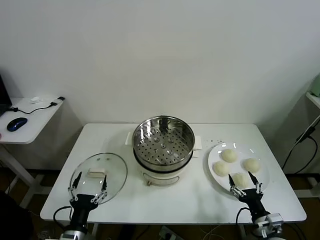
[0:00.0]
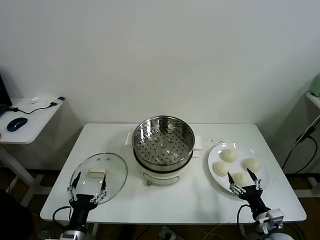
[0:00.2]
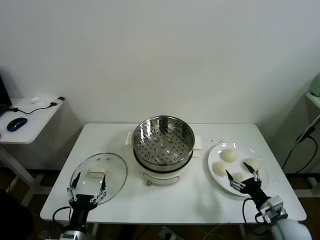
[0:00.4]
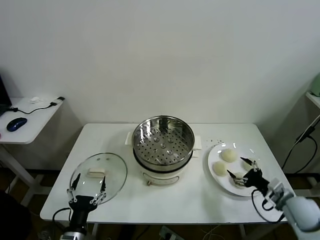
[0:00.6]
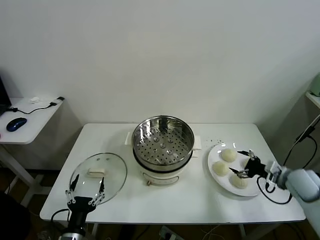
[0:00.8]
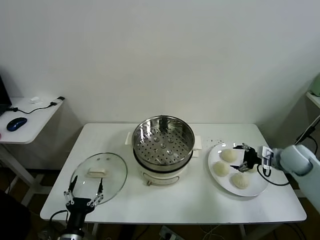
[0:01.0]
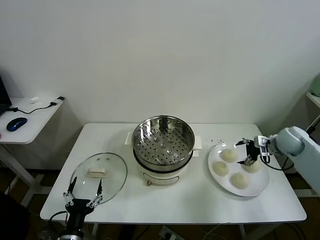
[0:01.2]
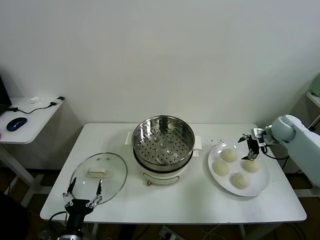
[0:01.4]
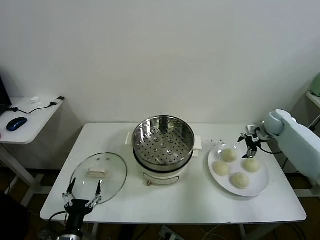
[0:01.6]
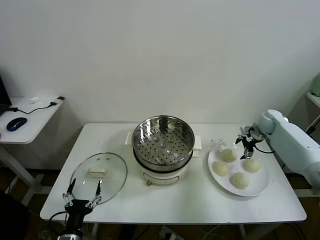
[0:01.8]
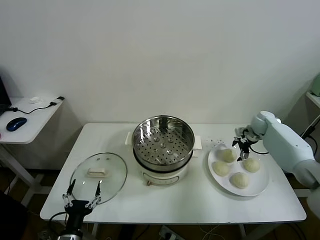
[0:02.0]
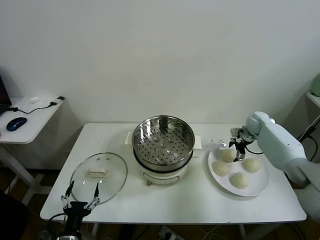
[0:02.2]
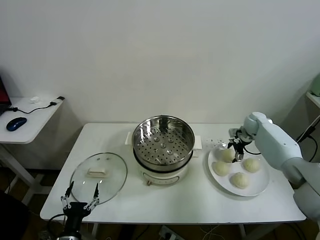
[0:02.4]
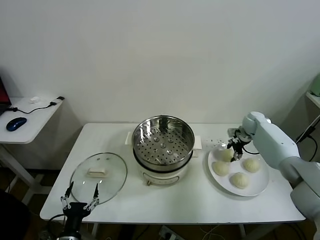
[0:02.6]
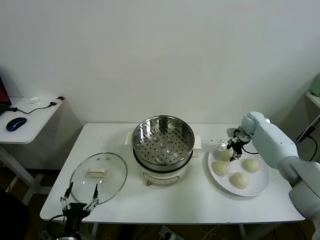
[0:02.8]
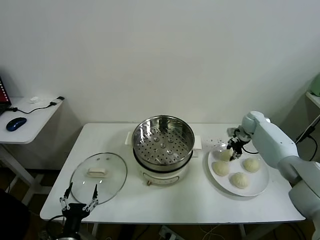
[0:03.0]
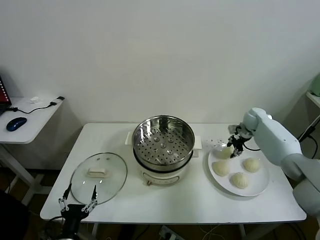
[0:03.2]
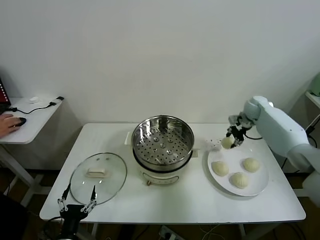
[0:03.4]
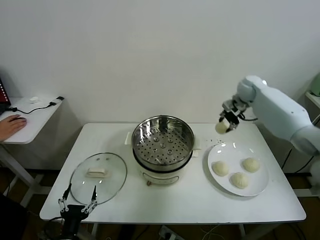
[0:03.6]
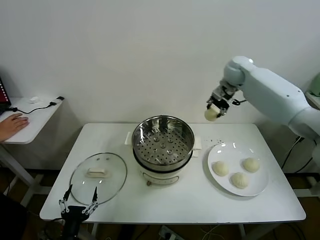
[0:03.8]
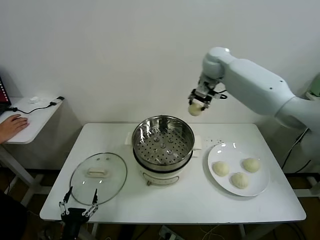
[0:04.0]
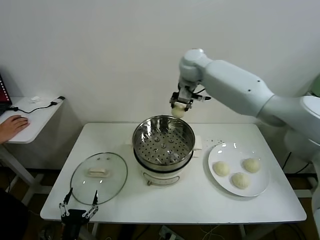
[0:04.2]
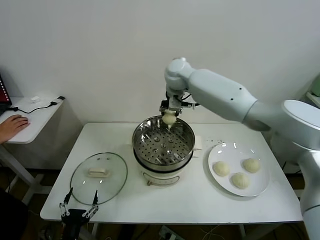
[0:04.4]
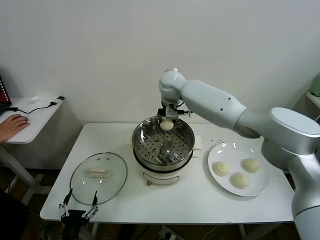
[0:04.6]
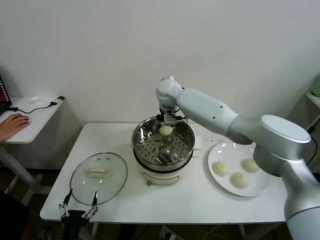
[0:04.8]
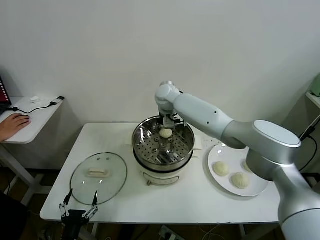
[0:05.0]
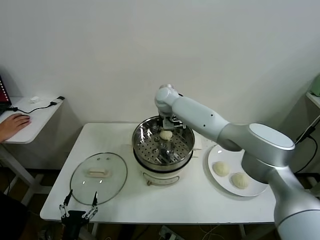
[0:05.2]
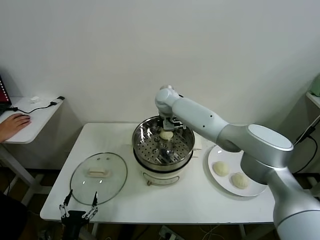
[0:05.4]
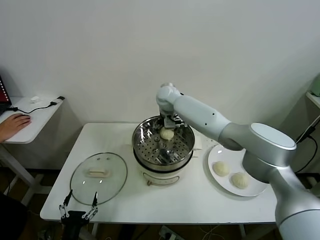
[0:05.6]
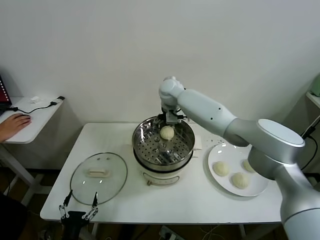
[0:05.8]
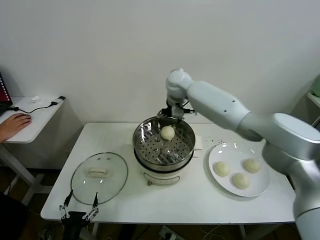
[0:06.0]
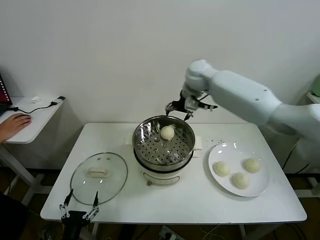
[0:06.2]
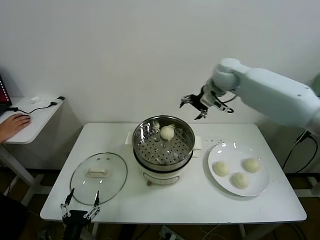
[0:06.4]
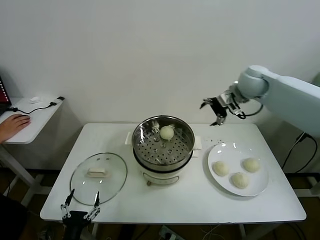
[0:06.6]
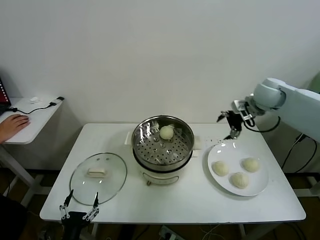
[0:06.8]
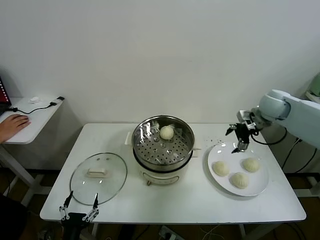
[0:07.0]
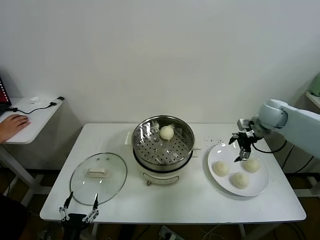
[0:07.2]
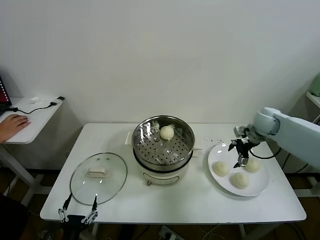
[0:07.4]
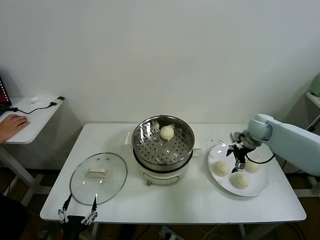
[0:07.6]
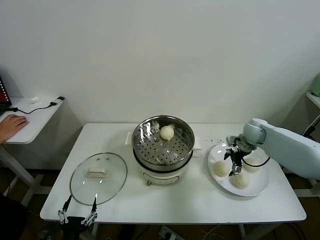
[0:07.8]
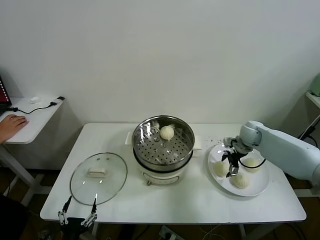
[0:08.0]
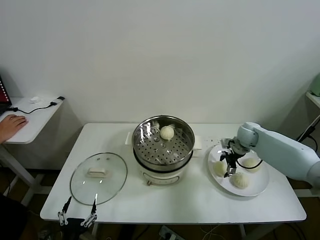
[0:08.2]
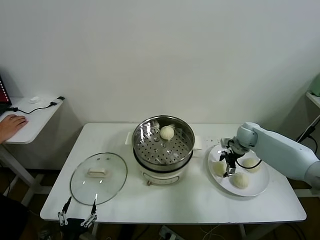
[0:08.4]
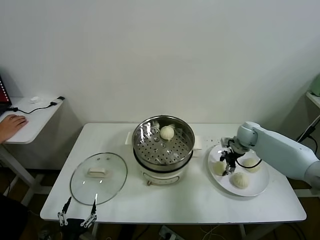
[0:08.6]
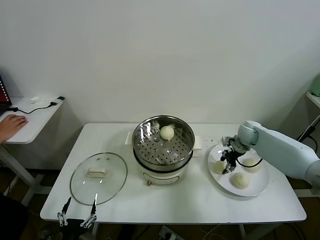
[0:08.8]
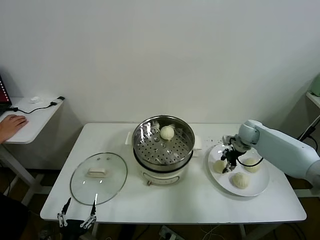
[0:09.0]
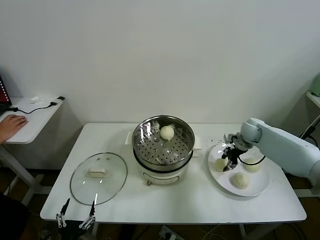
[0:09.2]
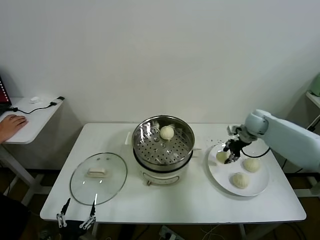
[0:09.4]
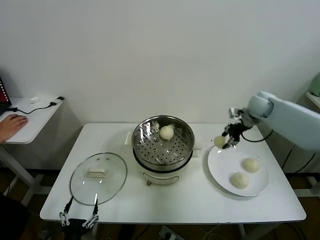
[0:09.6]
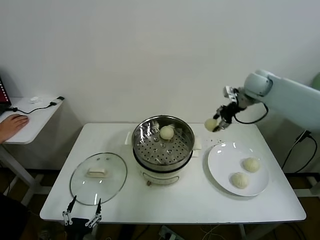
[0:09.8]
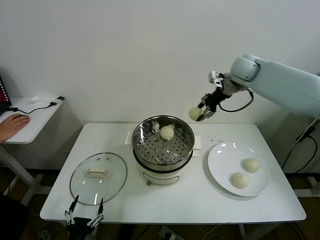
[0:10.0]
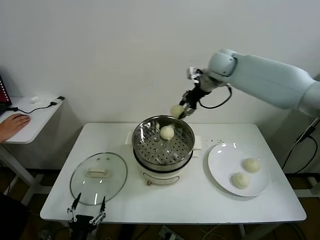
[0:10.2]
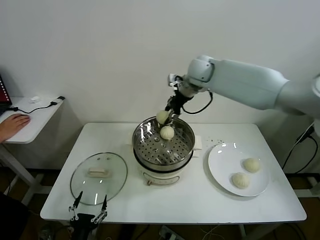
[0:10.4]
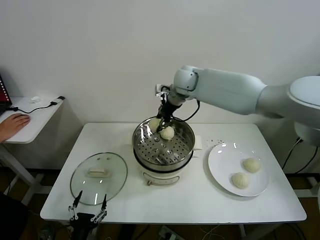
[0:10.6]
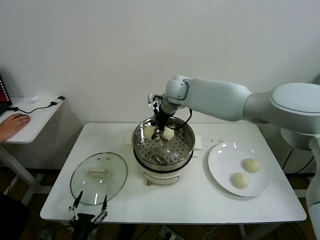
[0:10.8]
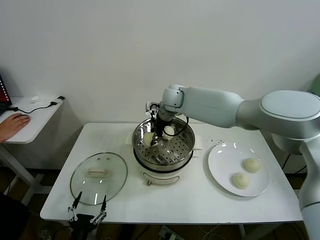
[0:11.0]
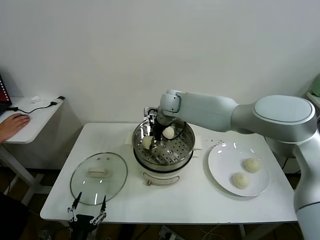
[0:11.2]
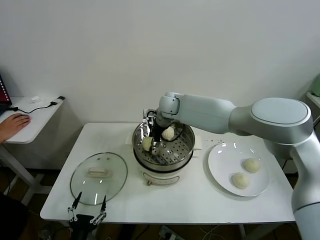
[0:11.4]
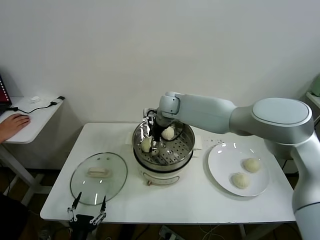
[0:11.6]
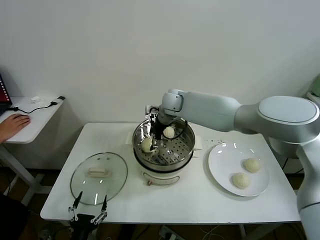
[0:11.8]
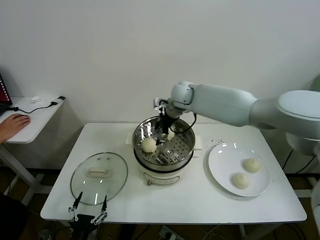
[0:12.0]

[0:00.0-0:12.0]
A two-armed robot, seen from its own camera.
Task of the whole recording: take steamed baozi put them in steamer.
Step, 0.0 to 2.6 s: Grasp the baozi in the plate with right gripper.
Step, 2.8 to 5.6 s: Place the baozi on the steamer with right gripper.
Step, 5.8 to 8.8 s: Grasp the baozi in the plate with right gripper.
Step, 9.0 to 11.6 s: Place the baozi on the steamer with right gripper.
1.6 to 3.0 s: The right gripper heads to the left, covering some 5 cm, and closes.
3.0 to 4.4 s: The right gripper moves to the left and upward, some 40 cm.
4.4 to 6.0 s: The right gripper moves about 10 cm downward and comes back, and opens up.
6.0 to 7.6 s: The right gripper goes about 35 cm to the right and downward.
7.6 to 9.0 s: The right gripper closes its fingers.
9.0 to 10.4 s: The right gripper shifts about 35 cm to the left and upward.
10.4 to 12.0 s: The right gripper heads downward, covering about 5 cm, and opens.

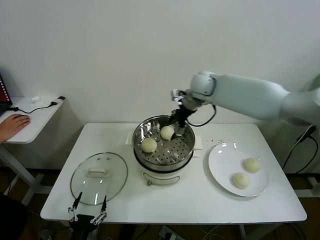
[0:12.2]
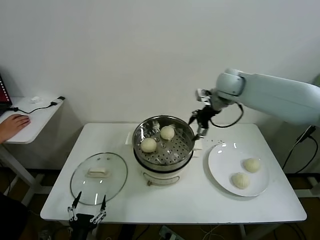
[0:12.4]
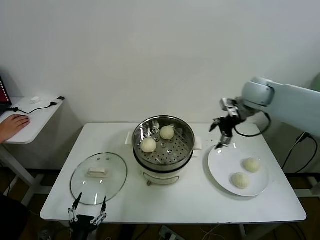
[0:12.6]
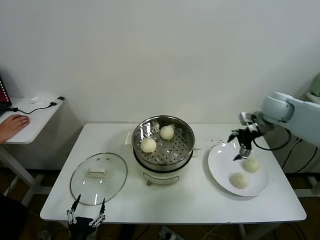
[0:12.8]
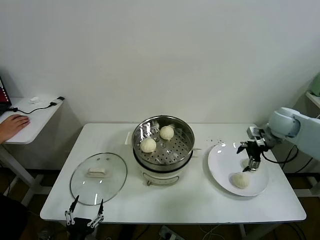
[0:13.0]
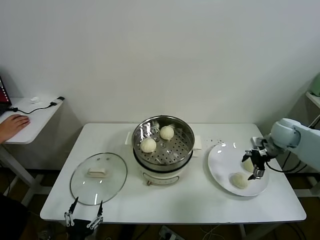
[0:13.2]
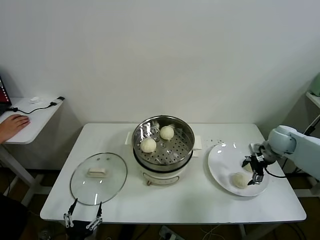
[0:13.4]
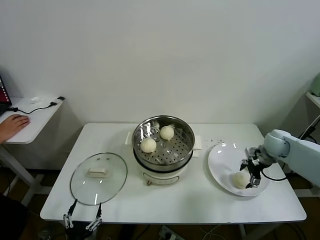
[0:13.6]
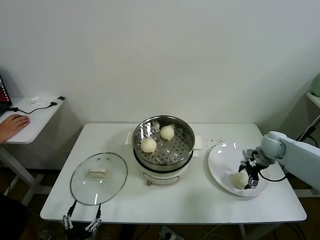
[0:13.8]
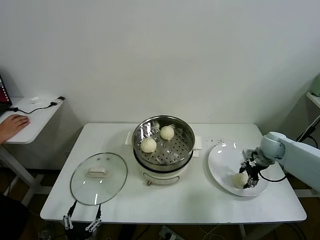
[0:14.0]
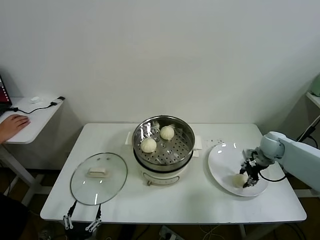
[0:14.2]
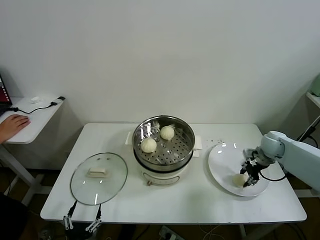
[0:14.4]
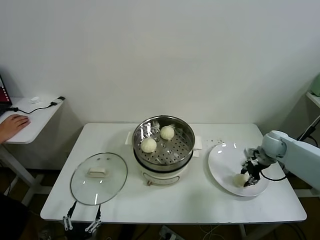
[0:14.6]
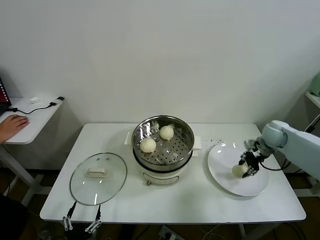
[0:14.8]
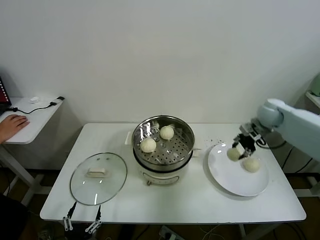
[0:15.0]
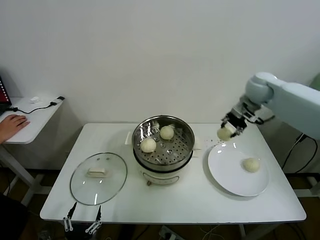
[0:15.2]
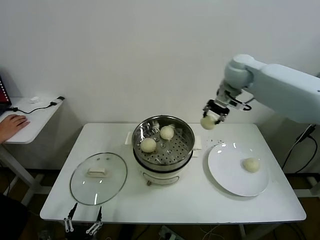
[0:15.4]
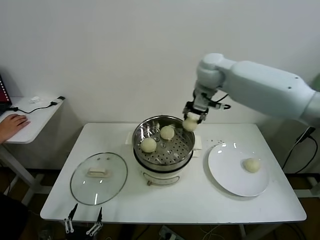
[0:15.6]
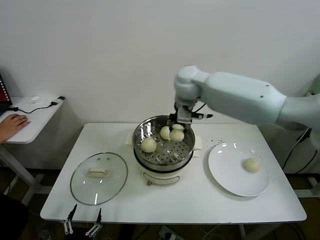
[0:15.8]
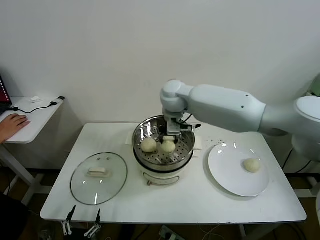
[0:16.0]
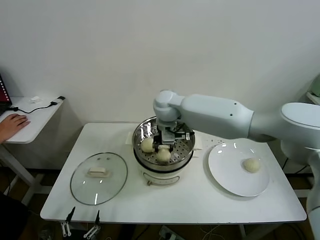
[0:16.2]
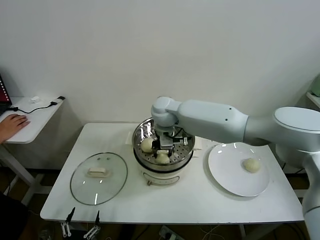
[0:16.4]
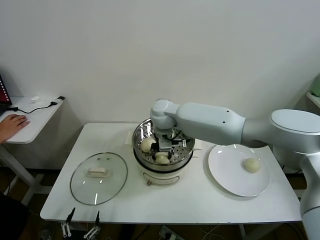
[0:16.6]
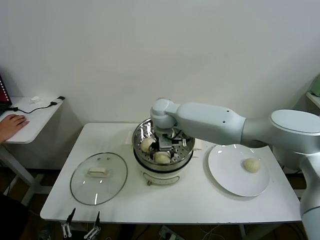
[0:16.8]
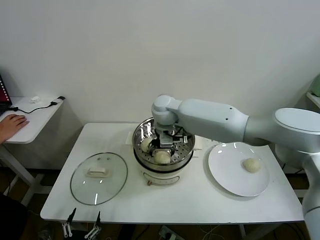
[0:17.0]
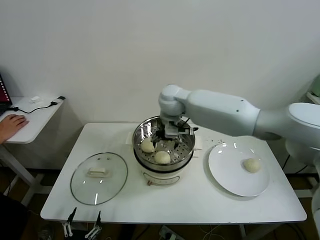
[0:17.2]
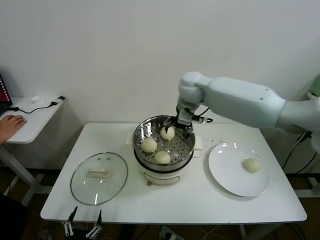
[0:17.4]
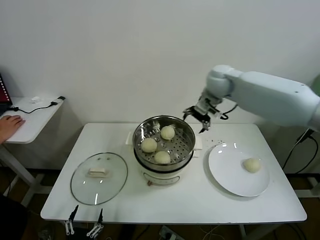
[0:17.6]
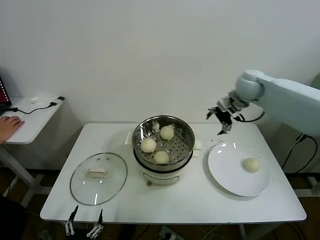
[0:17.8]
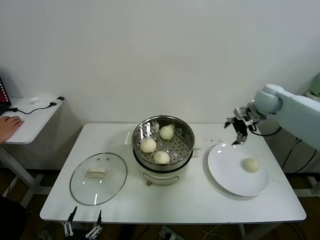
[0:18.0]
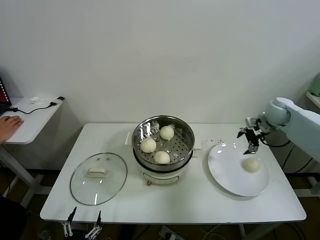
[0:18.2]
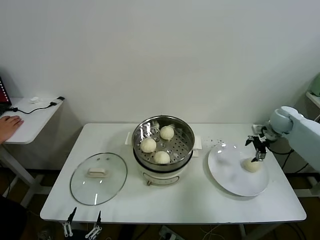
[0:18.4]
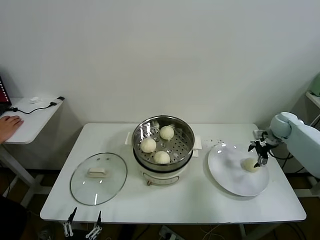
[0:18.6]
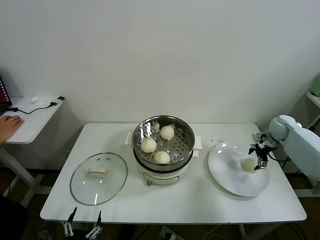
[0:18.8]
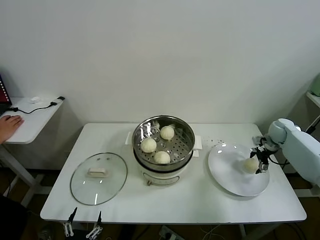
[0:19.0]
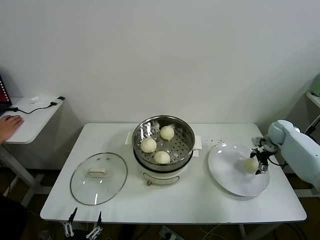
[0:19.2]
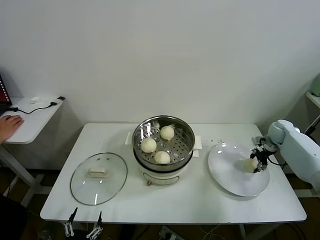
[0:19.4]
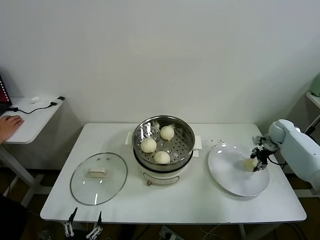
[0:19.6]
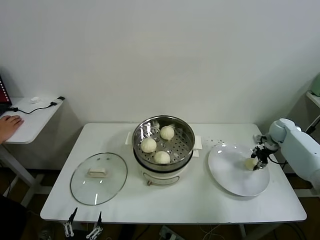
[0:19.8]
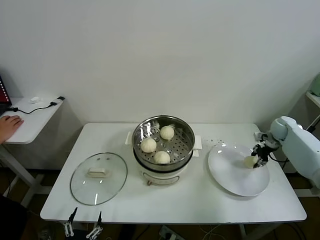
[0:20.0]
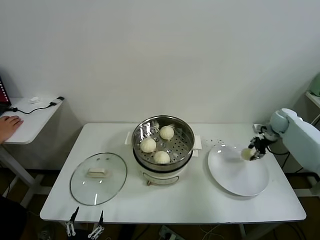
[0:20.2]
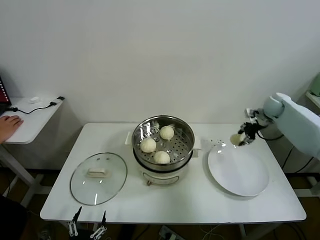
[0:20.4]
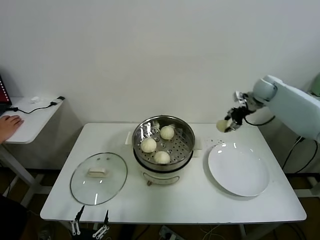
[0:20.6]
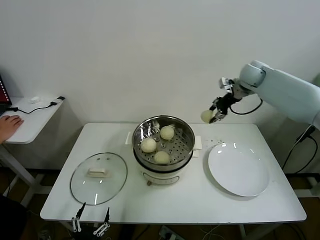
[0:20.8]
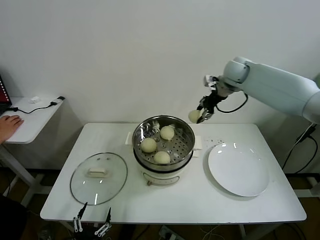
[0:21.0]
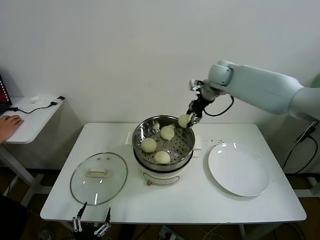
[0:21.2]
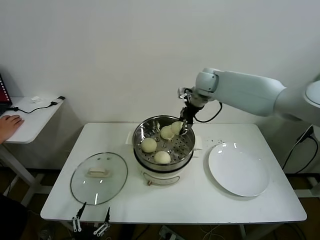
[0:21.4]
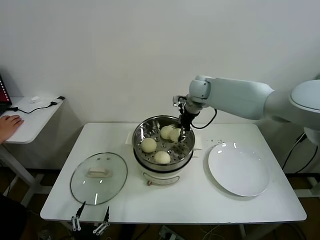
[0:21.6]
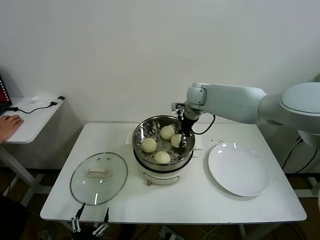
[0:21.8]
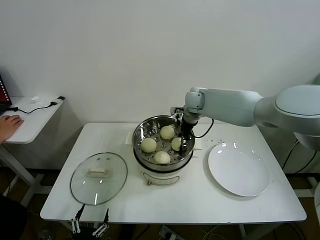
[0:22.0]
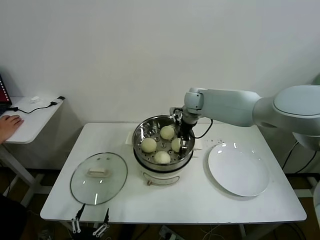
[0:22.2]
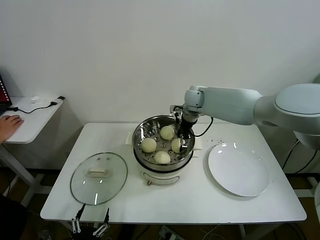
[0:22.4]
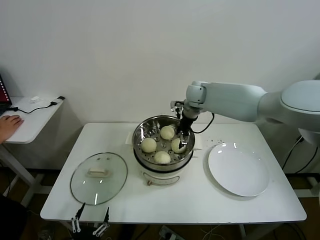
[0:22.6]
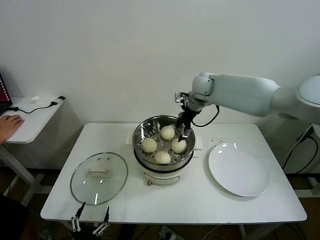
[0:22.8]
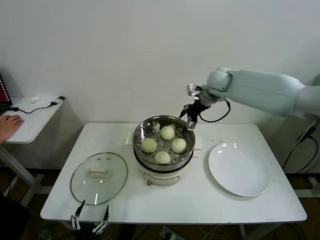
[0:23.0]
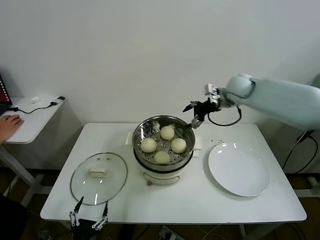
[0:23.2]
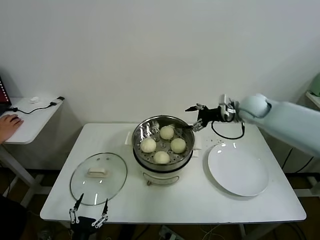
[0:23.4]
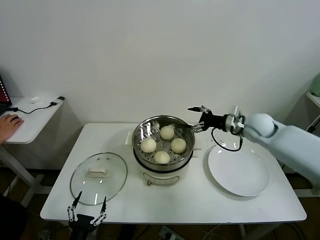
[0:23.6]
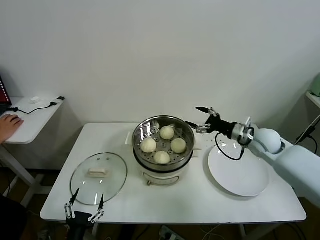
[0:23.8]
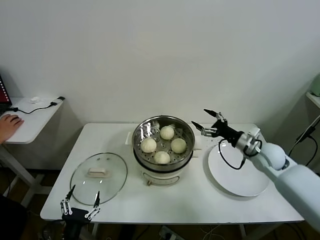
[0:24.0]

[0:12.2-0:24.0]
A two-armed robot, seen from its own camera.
Task of the whole recording: take steamed baozi put them in steamer.
Step, 12.2 to 14.0 s: Grasp the baozi in the plate with right gripper.
Step, 14.2 to 16.8 s: Place the baozi on the steamer with right gripper.
Step, 17.0 to 19.4 s: Grasp the baozi in the plate with right gripper.
Step, 19.6 to 22.4 s: Place the baozi on the steamer with right gripper.
12.2 to 13.6 s: The right gripper heads to the right, downward and backward, covering approximately 35 cm.
13.6 to 15.2 s: The right gripper moves upward, to the left and forward, about 25 cm, and closes up.
15.2 to 16.6 s: The right gripper travels to the left by approximately 30 cm.
16.6 to 18.2 s: The right gripper moves to the right, about 40 cm, and opens up.
18.2 to 19.6 s: The right gripper is displaced downward and to the right by about 15 cm, and closes up.
19.6 to 21.0 s: The right gripper shifts roughly 35 cm upward and to the left.
21.0 to 22.6 s: The right gripper moves to the left and downward, some 15 cm, and opens up.
22.6 to 24.0 s: The right gripper goes about 30 cm to the right, backward and downward, while the left gripper changes place by about 5 cm.
